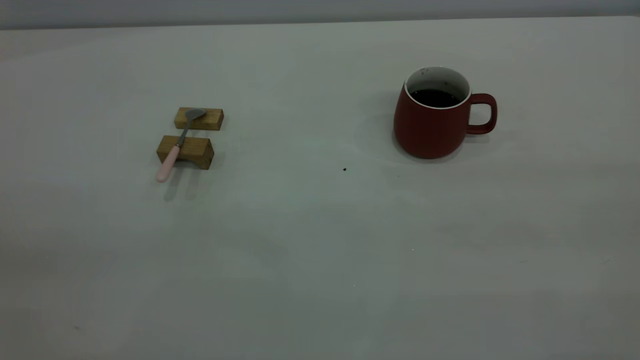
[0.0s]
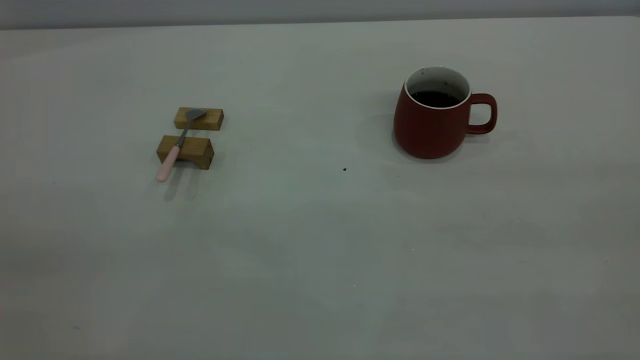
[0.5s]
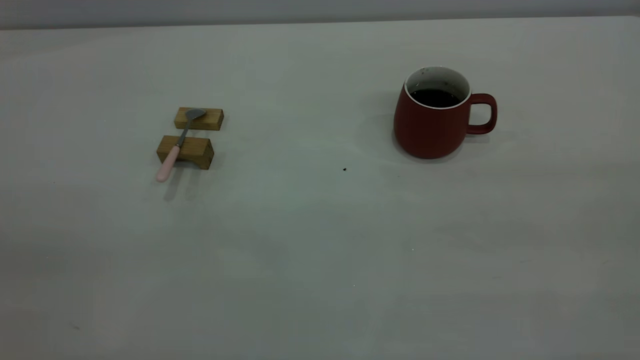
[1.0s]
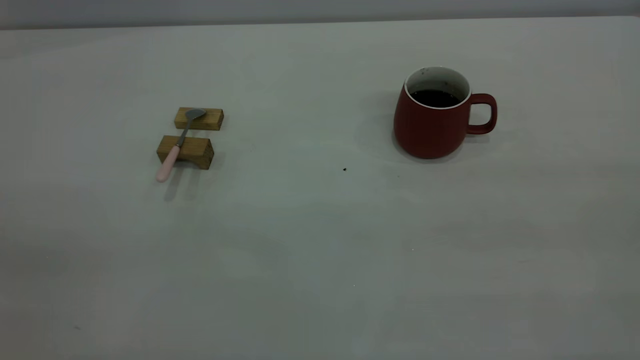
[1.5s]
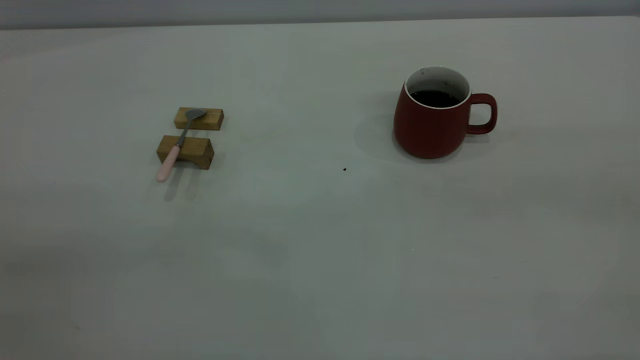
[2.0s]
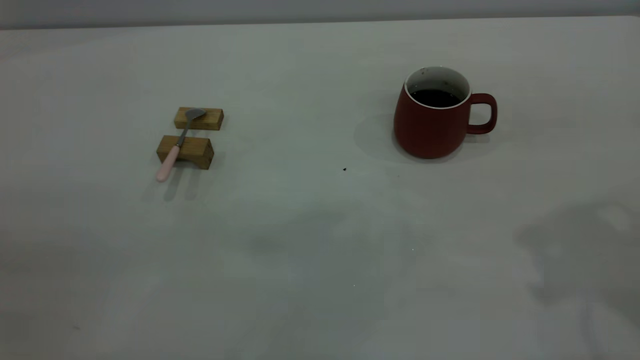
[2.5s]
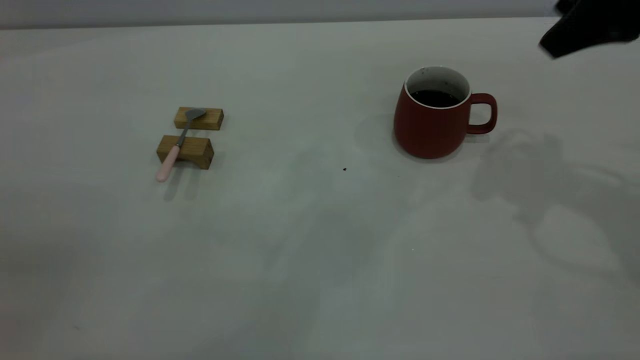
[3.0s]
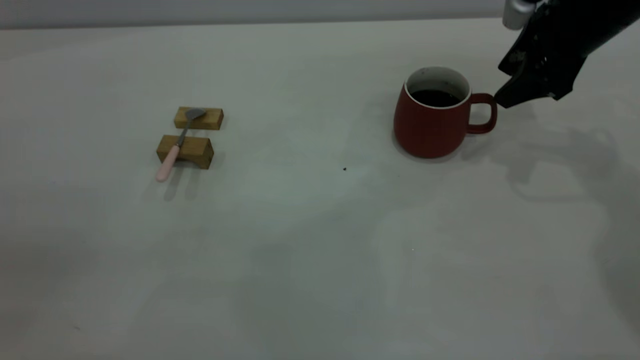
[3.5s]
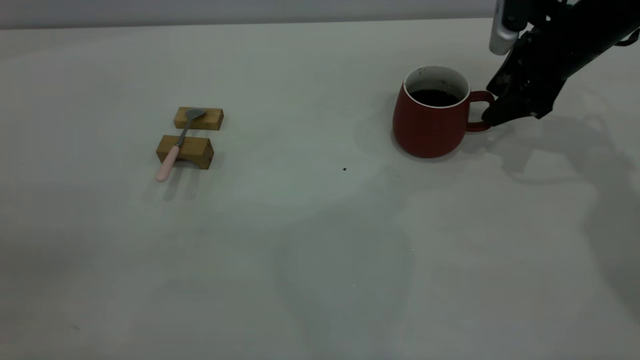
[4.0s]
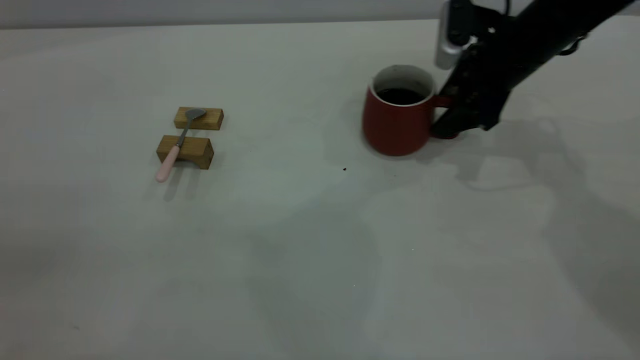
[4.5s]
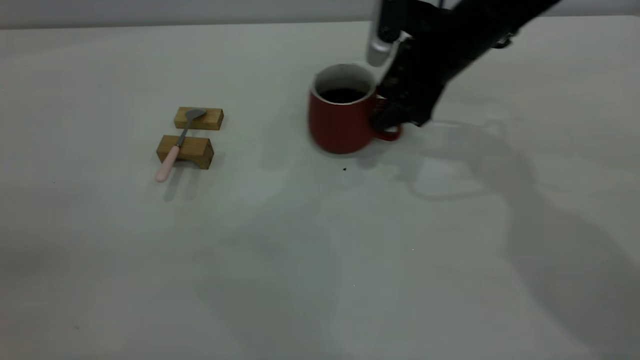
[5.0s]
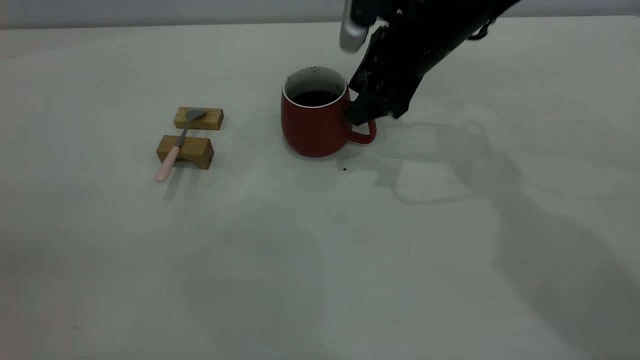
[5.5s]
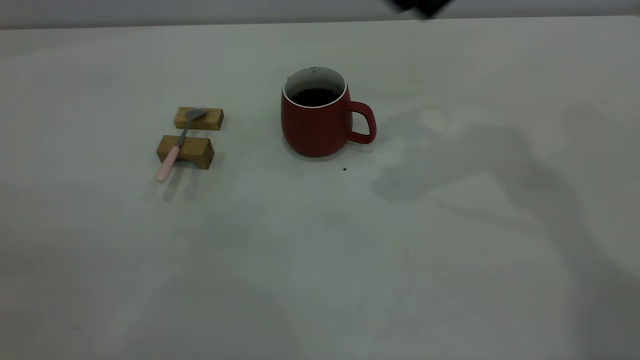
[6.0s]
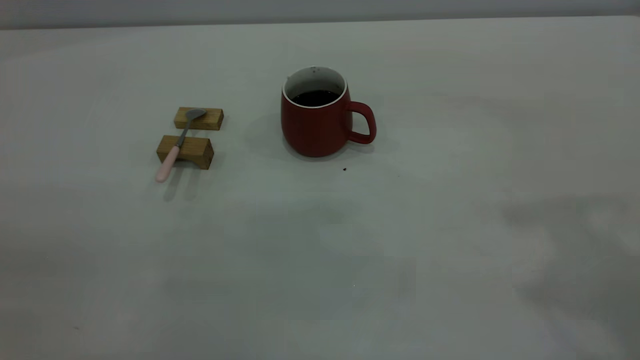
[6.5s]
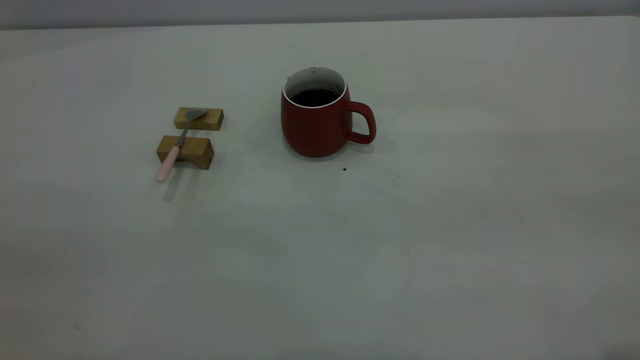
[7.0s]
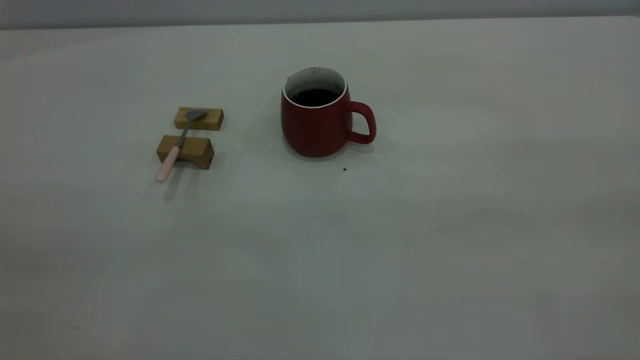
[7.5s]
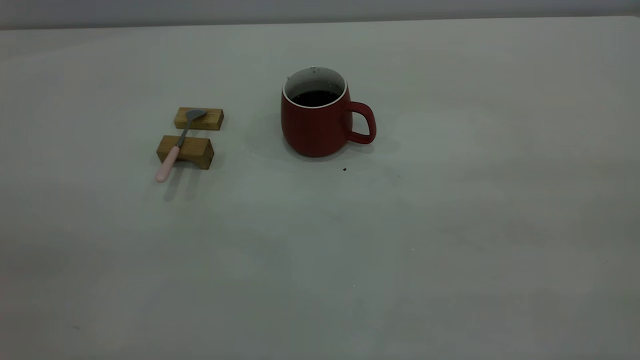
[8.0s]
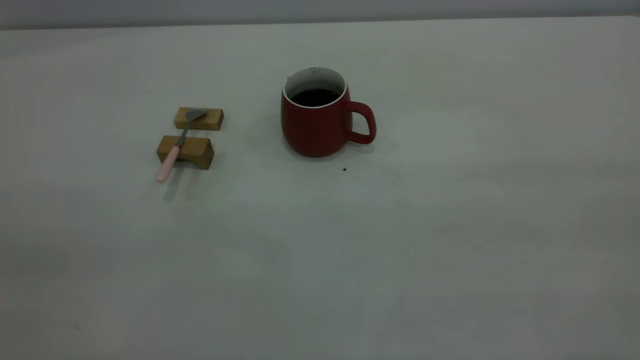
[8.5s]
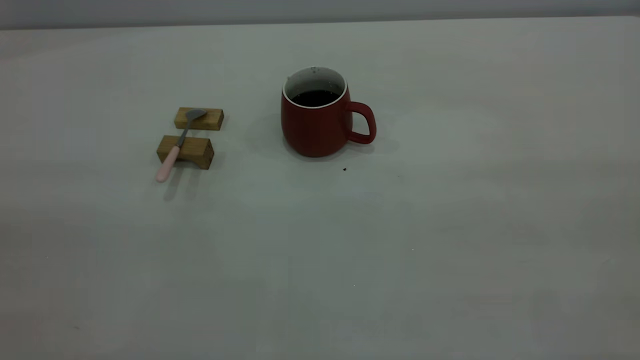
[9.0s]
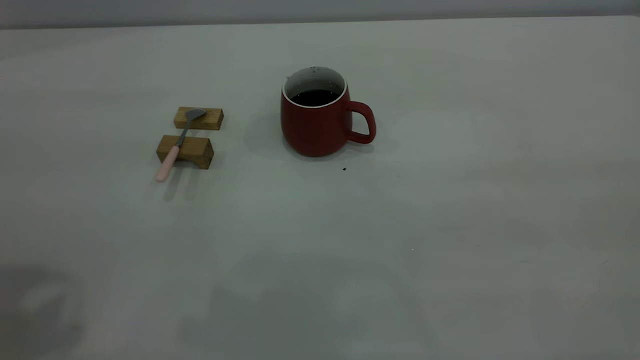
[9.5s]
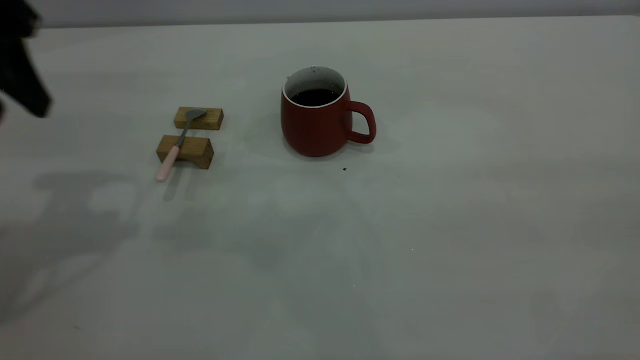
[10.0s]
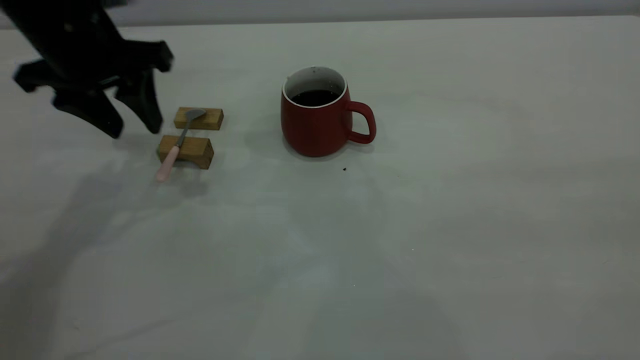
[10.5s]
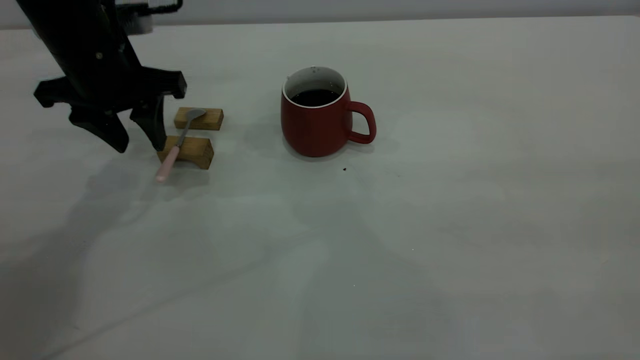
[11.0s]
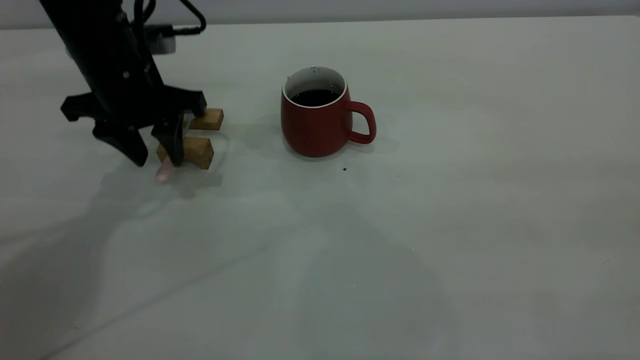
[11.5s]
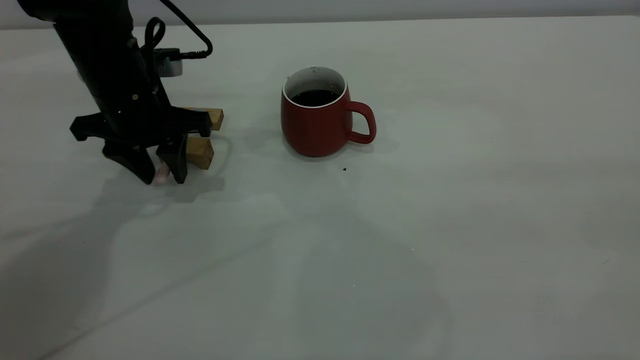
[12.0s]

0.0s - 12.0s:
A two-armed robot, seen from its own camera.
Step, 0.0s - 5.5s: Move the cup with coffee to the center of view.
2.0s - 4.0s: The right gripper moves forward and downward, approximately 40 cm.
4.0s - 6.0s: The right gripper goes roughly 25 cm upward and to the left, and closes its fingers.
8.0s - 10.0s: The left gripper goes roughly 30 cm forward, and opens.
10.0s - 12.0s: The left gripper moves downward, forward and to the right, some 20 cm.

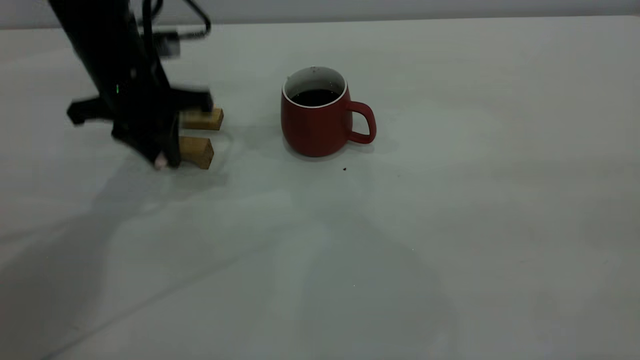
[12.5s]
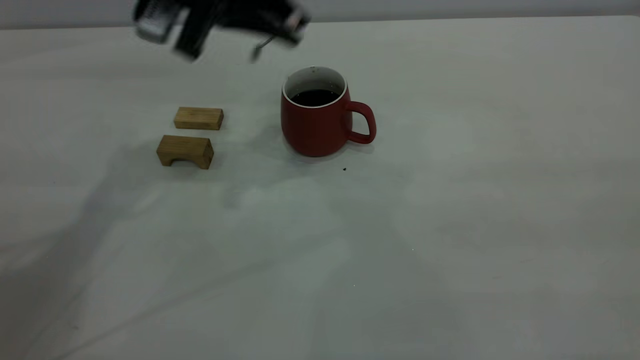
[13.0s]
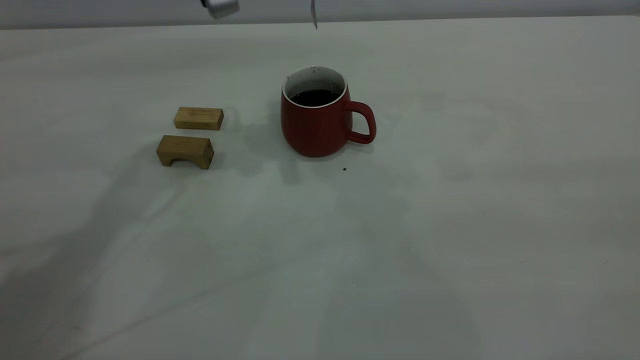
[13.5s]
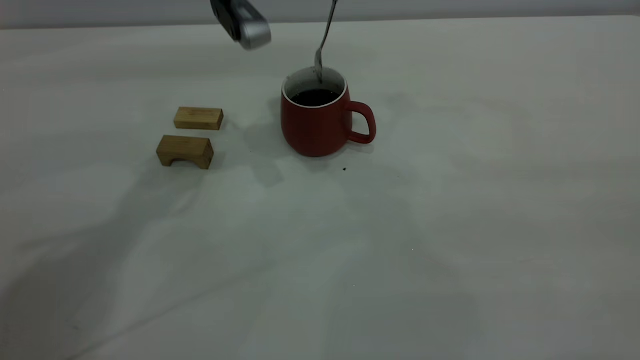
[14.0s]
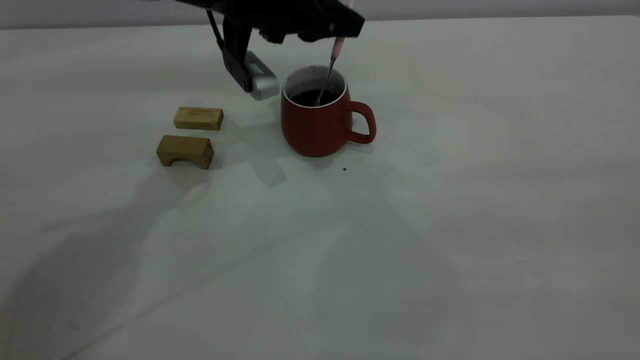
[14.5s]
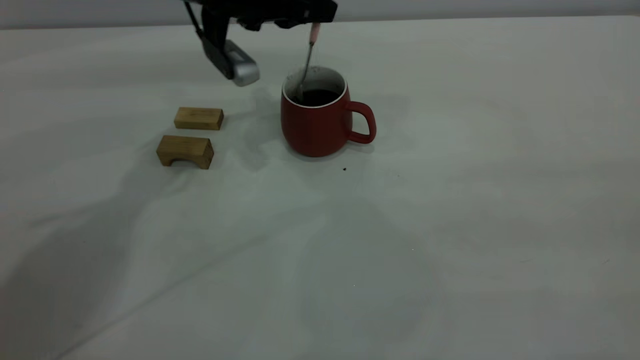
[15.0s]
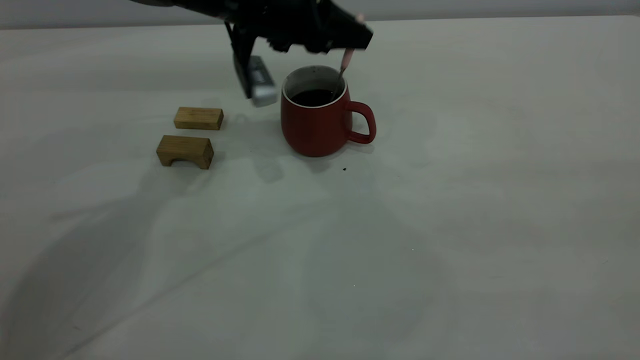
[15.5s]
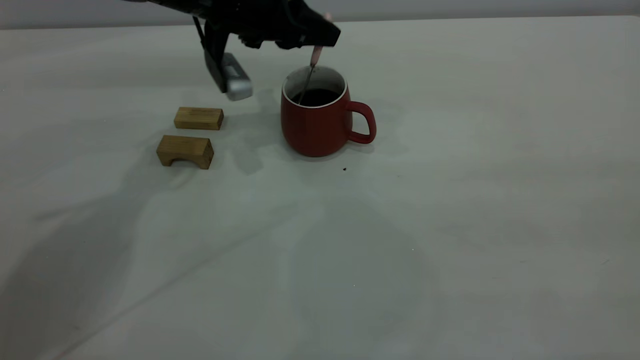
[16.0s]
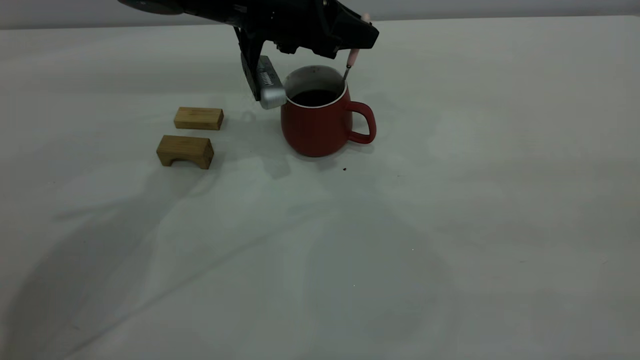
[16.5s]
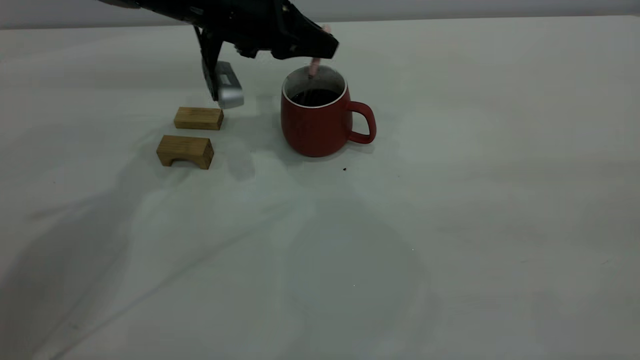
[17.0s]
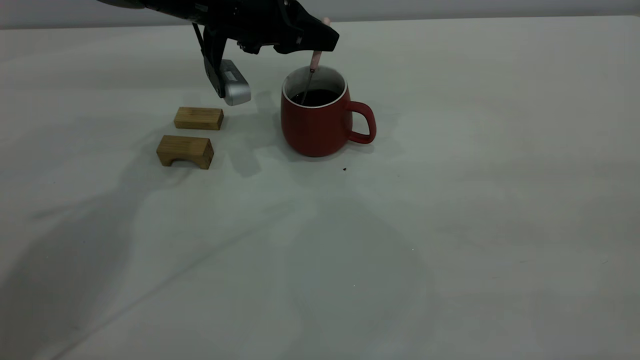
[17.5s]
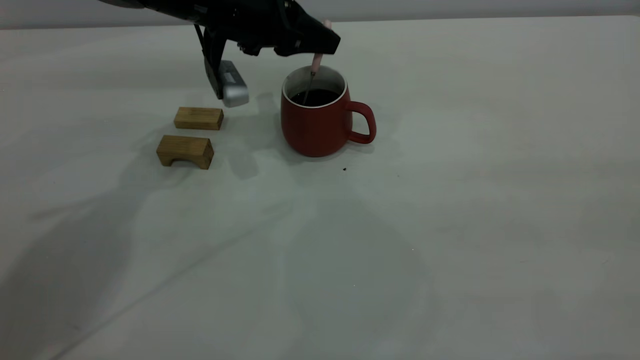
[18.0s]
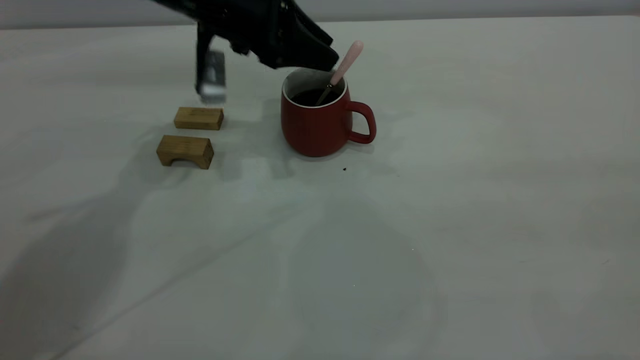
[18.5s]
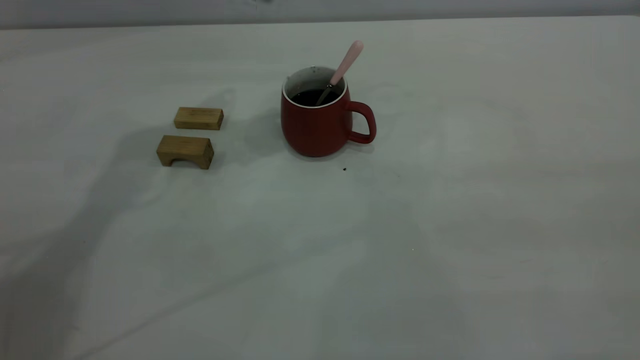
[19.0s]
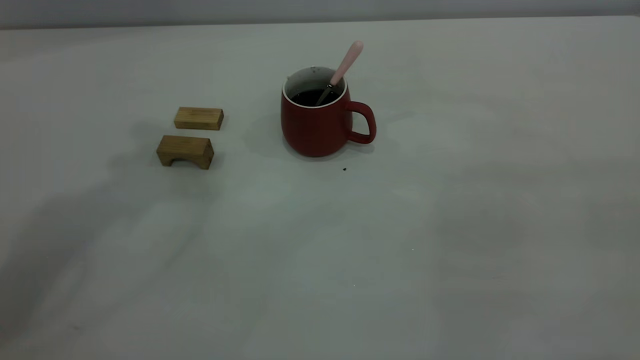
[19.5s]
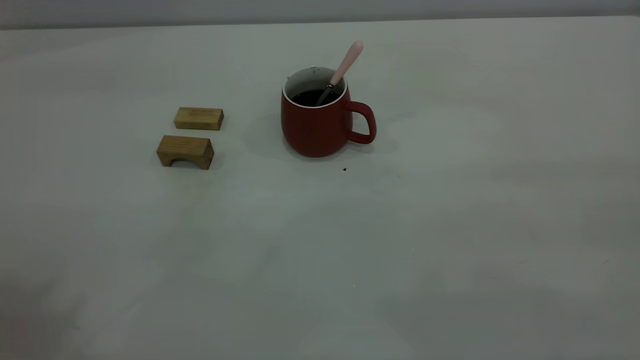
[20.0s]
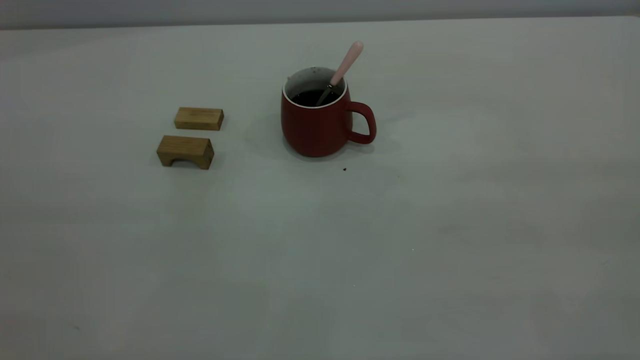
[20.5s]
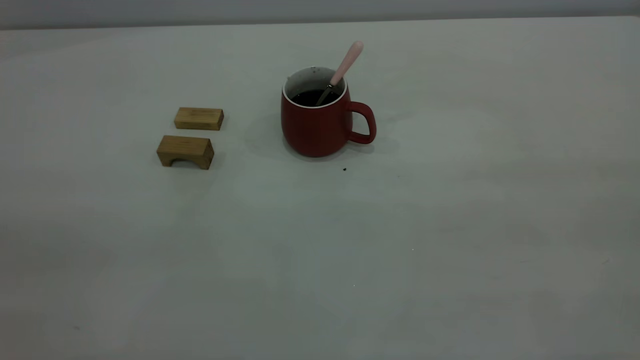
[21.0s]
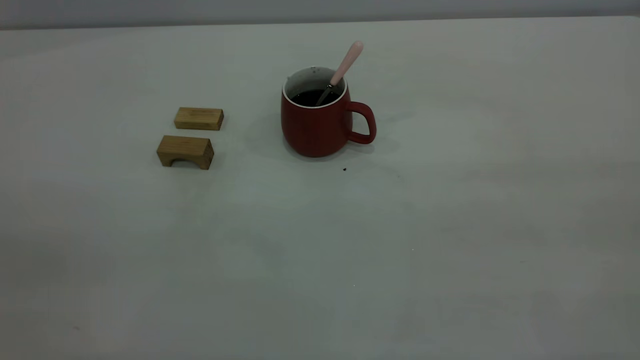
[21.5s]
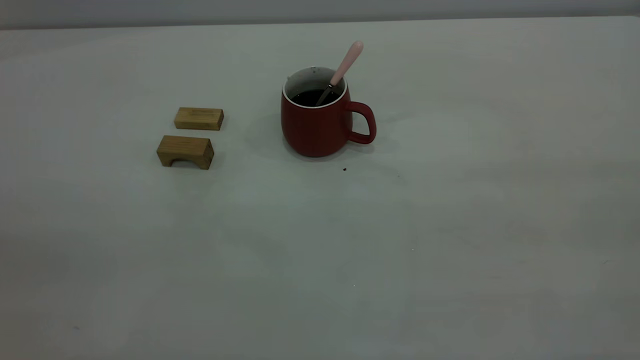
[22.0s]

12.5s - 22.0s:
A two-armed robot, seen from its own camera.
Step, 13.0s - 18.5s: Stir the coffee in the cup.
12.5s - 14.5s: The left gripper goes approximately 10 cm to the right, and travels upward and back again, roughly 10 cm each way.
14.5s - 18.0s: The grippers stay close to where they were, moving slightly.
18.0s - 20.0s: The left gripper travels upward and backward by about 50 cm, and opens up.
